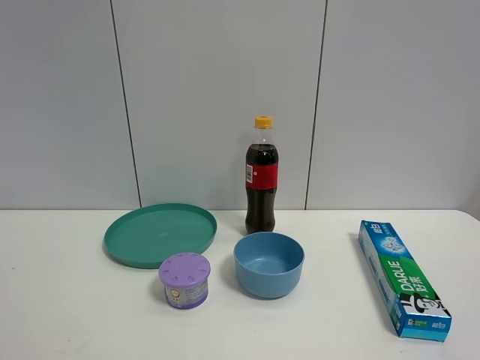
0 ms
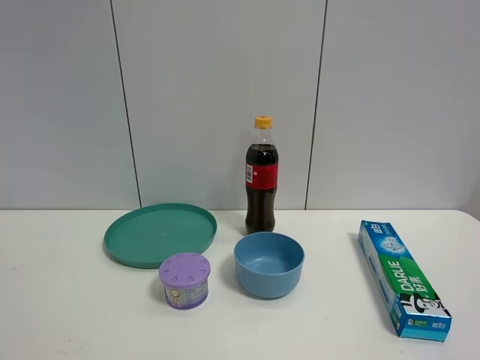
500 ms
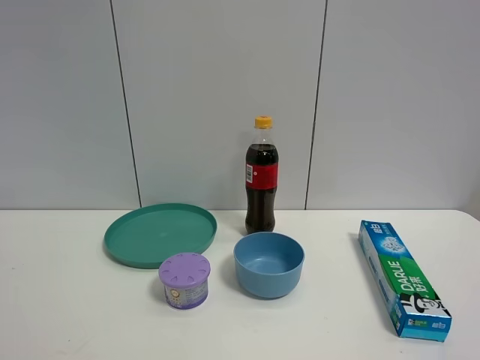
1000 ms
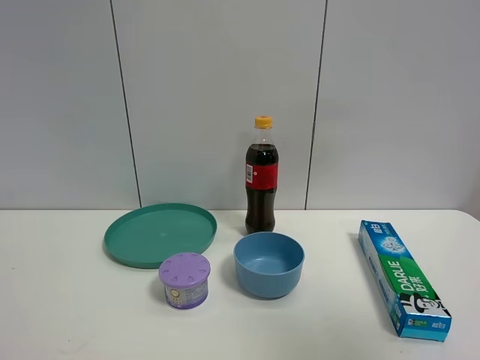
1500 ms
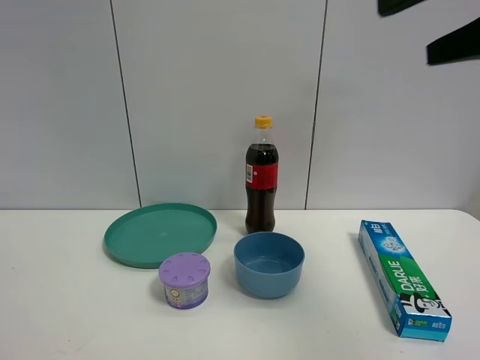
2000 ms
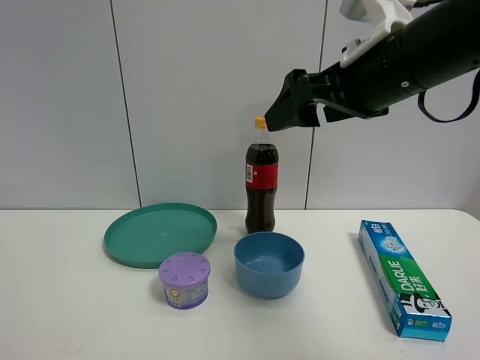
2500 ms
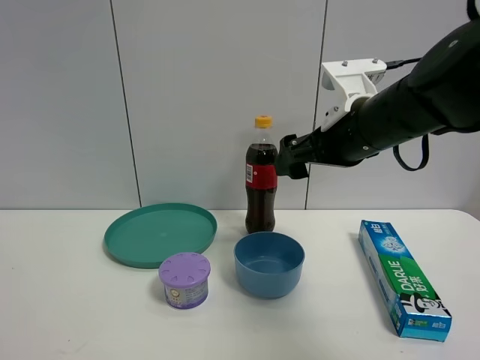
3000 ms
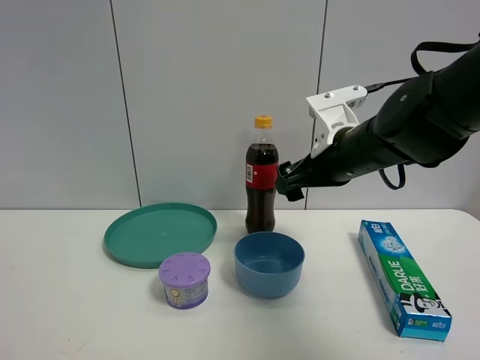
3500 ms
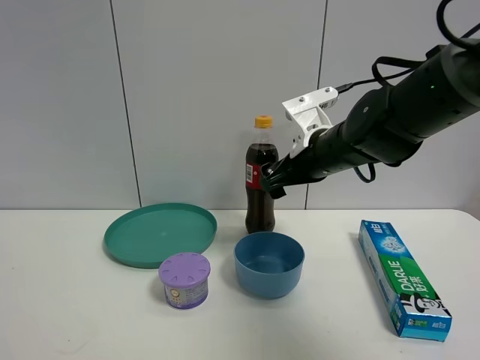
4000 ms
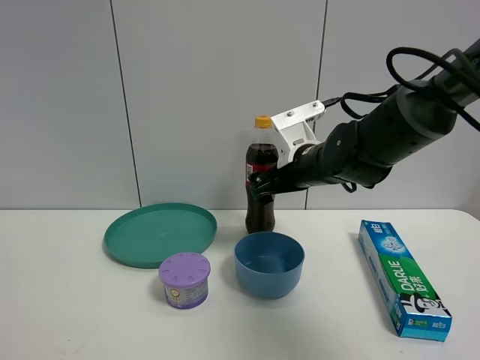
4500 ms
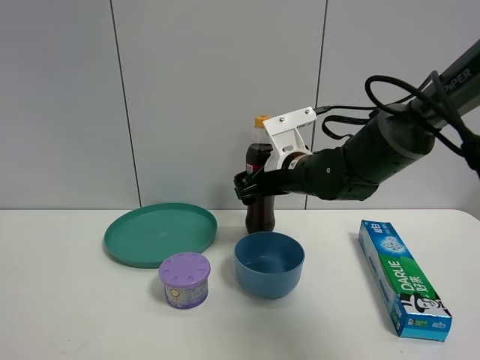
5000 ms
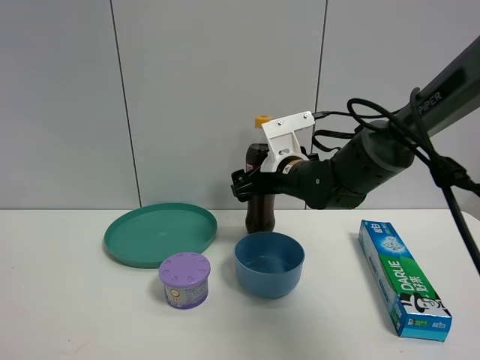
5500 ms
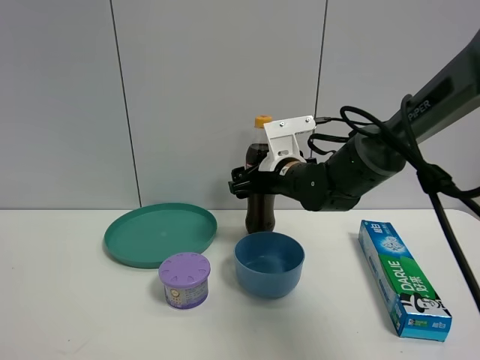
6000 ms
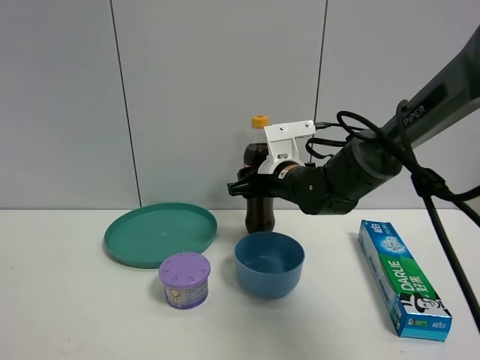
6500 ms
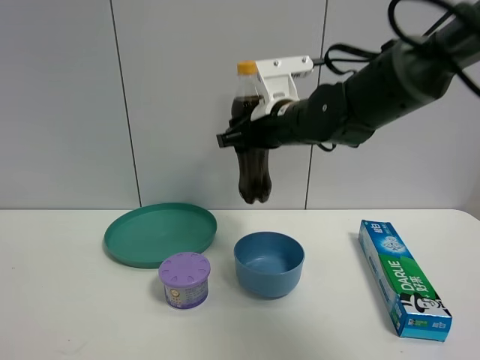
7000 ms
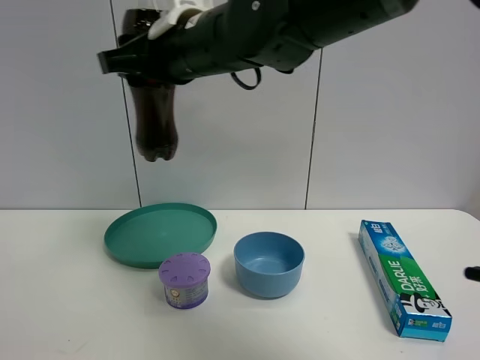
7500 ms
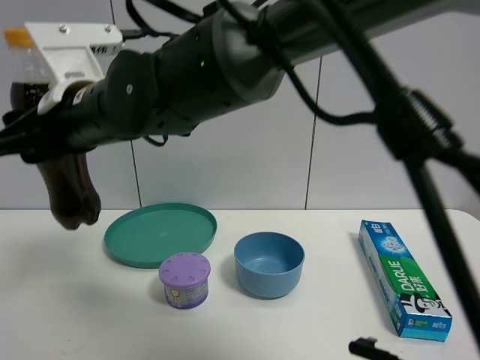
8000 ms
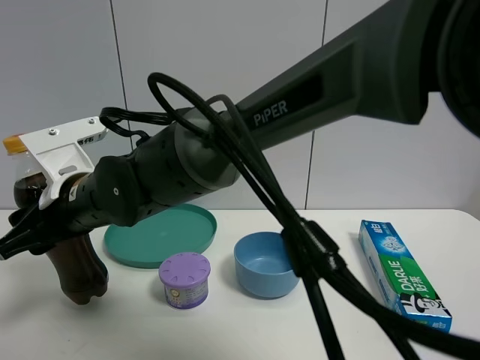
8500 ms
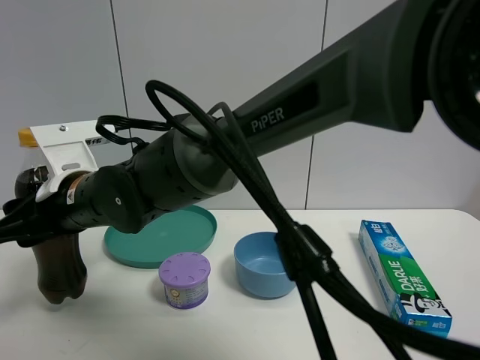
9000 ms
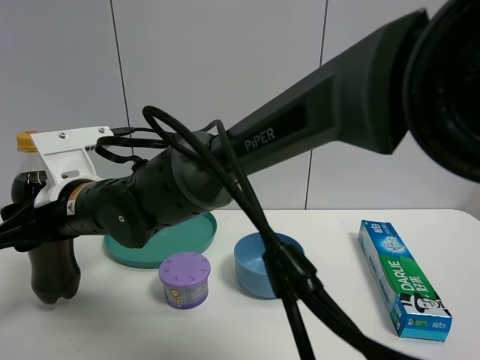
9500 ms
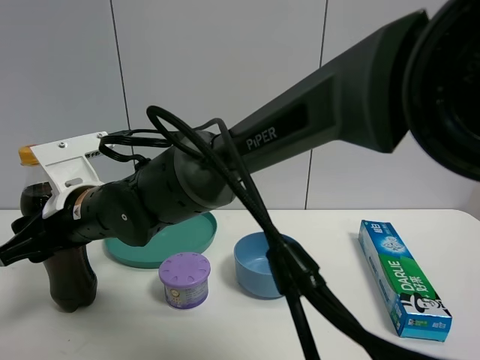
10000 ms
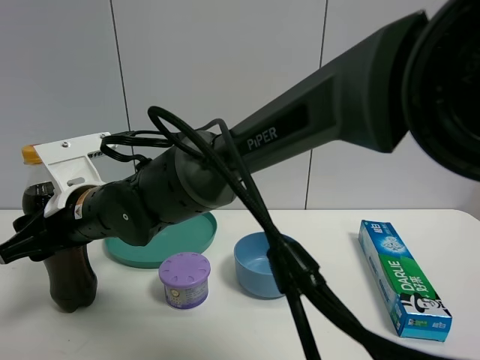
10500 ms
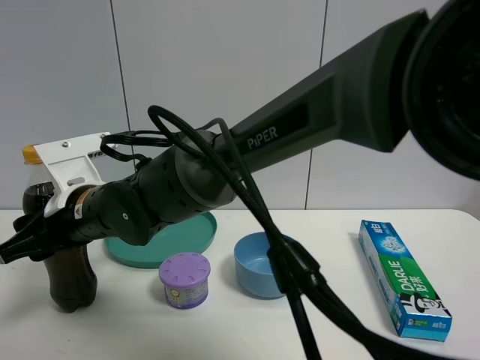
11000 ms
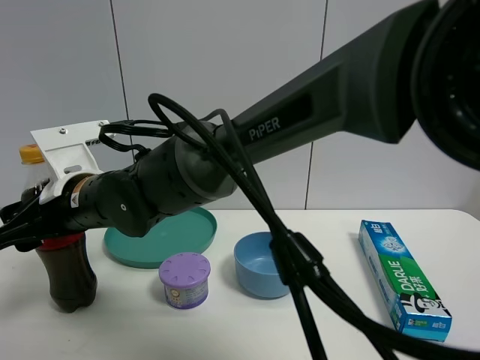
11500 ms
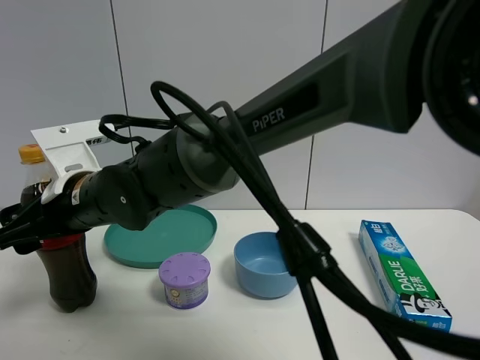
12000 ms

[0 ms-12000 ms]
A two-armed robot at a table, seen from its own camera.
Task of the whole recording: the gripper move the object.
Step, 0 ms to 6000 ms: Grasp the coke with the right gripper.
0 ms to 2000 ms: The right gripper moves forward and upward, about 25 cm.
2000 ms to 4000 ms: The right gripper goes approximately 25 cm downward, forward and to the left.
4000 ms to 6000 ms: The right gripper is displaced downward by roughly 5 cm.
6000 ms to 8000 ms: The right gripper goes some 30 cm to the left, backward and upward, and closes.
8000 ms to 10000 ms: The right gripper goes some 10 cm downward.
10000 ms to 12000 ms: The right gripper opens its fingers.

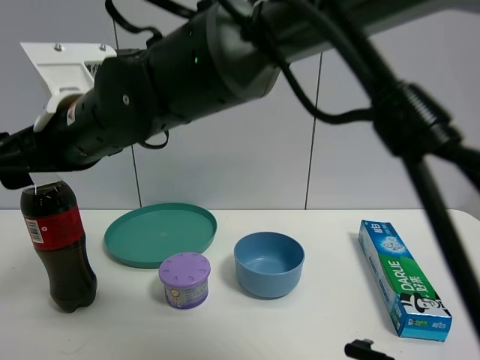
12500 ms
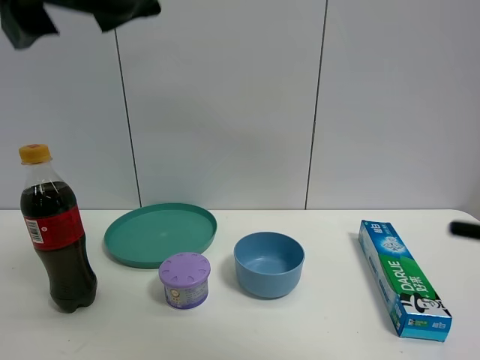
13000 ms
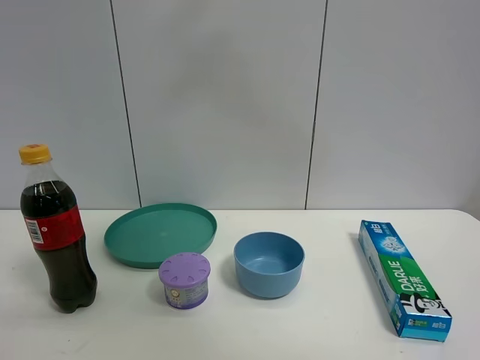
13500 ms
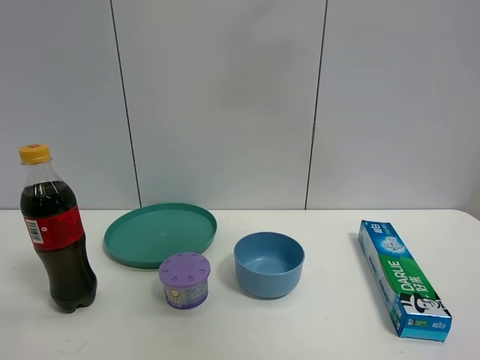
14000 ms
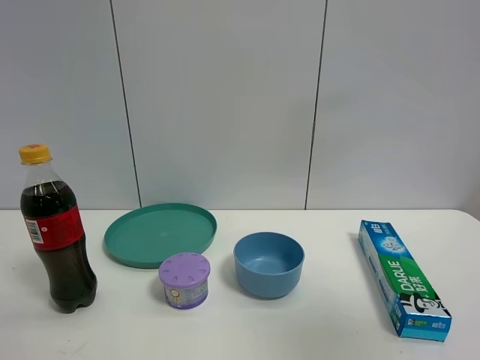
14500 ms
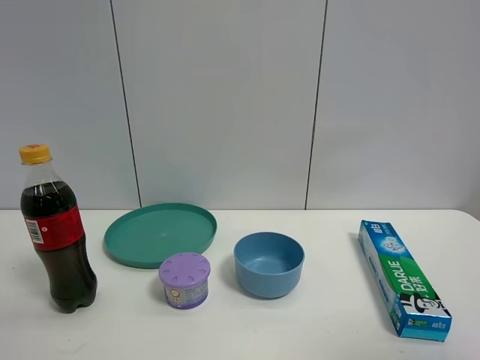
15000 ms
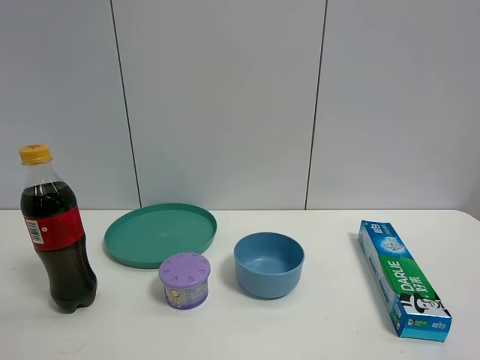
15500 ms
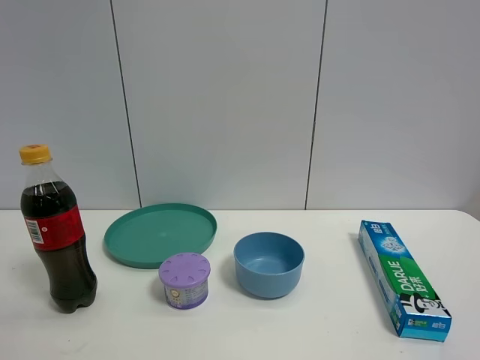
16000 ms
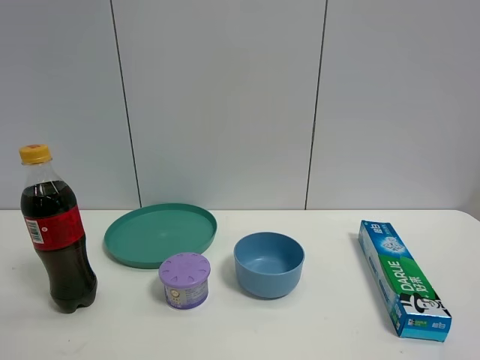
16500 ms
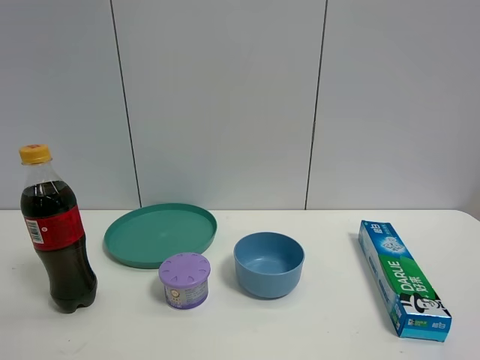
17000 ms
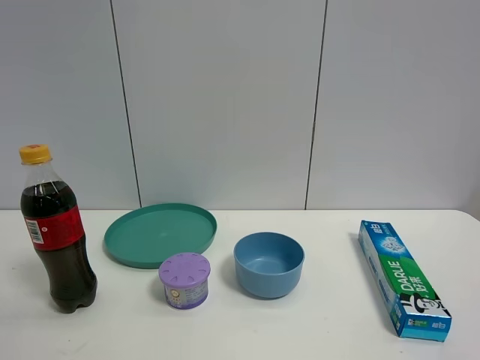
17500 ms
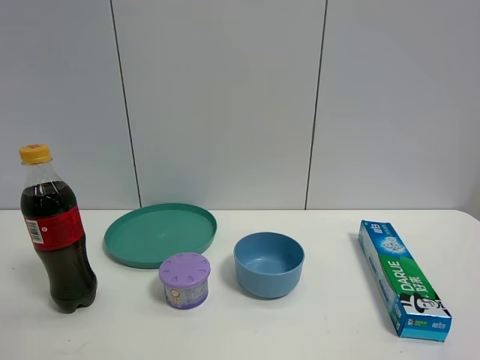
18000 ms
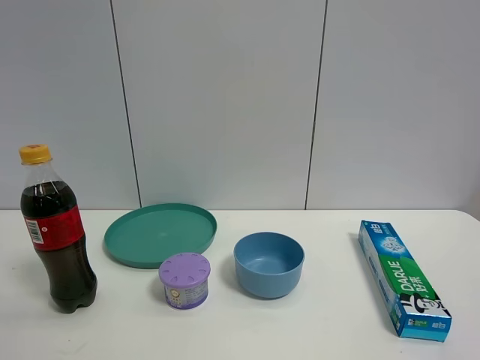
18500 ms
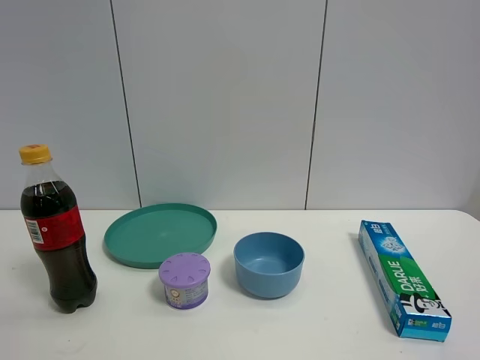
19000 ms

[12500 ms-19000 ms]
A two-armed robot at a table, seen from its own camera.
Task of the whole recording: the gripper move the object.
12500 ms to 14500 ms: The right gripper goes some 50 cm to the right and backward.
14500 ms to 17000 ms: The right gripper shifts roughly 15 cm downward and backward.
17000 ms to 19000 ms: The two grippers keep their place.

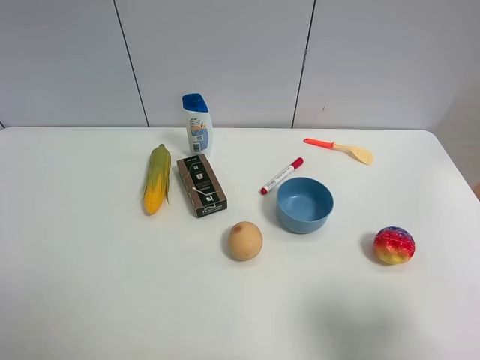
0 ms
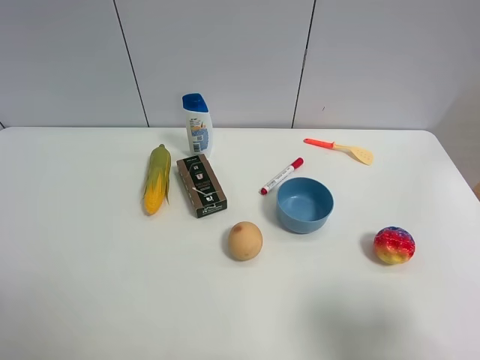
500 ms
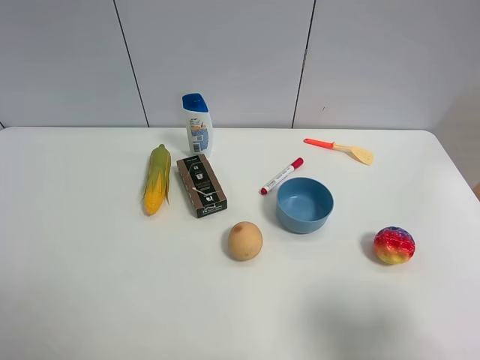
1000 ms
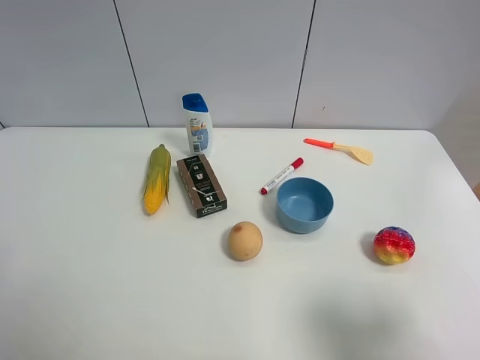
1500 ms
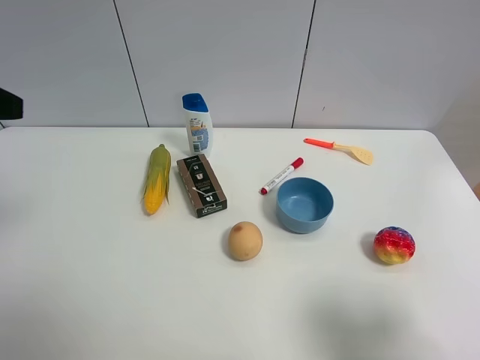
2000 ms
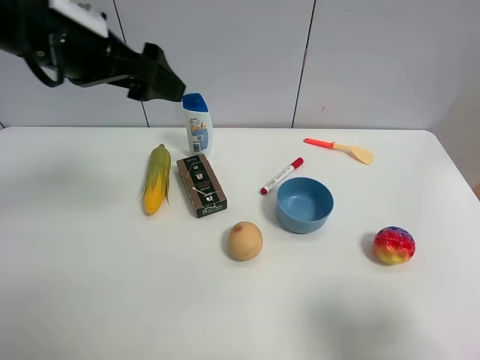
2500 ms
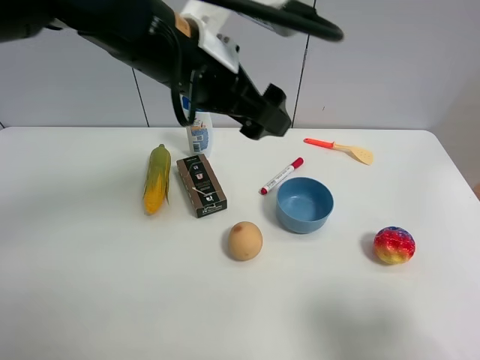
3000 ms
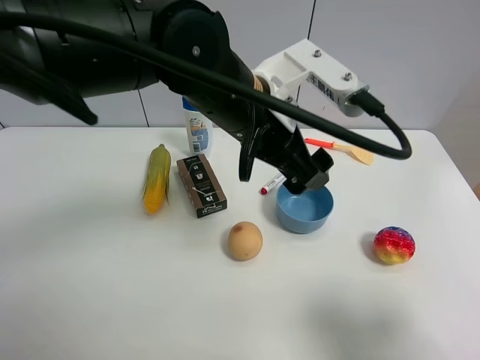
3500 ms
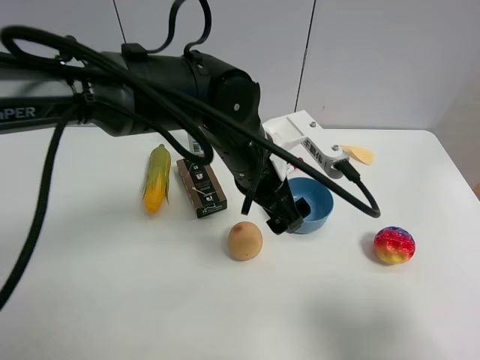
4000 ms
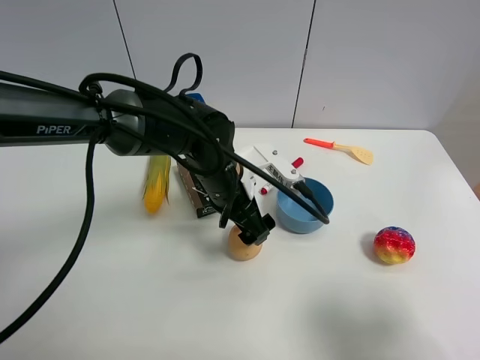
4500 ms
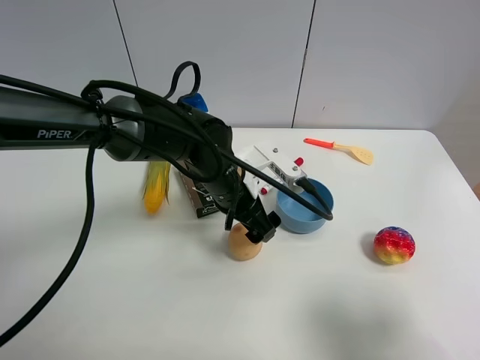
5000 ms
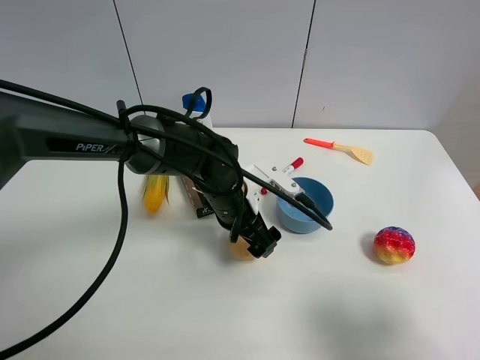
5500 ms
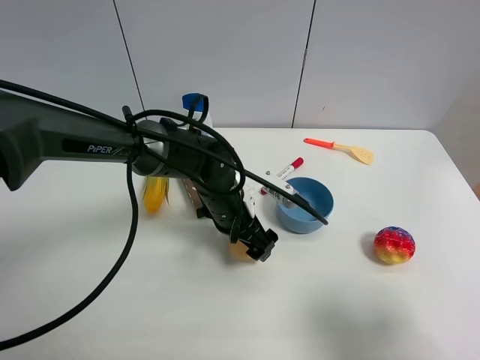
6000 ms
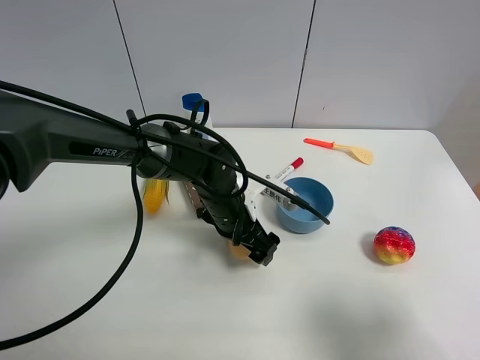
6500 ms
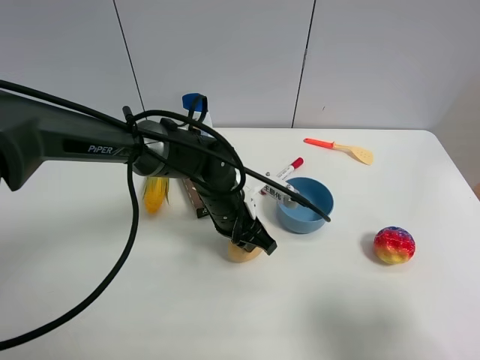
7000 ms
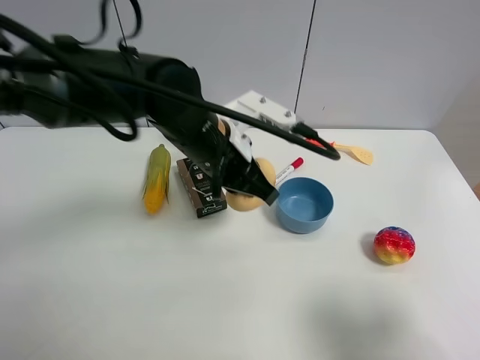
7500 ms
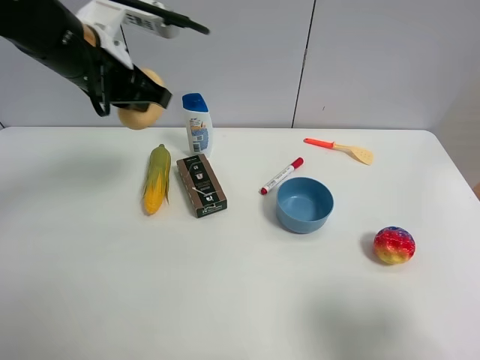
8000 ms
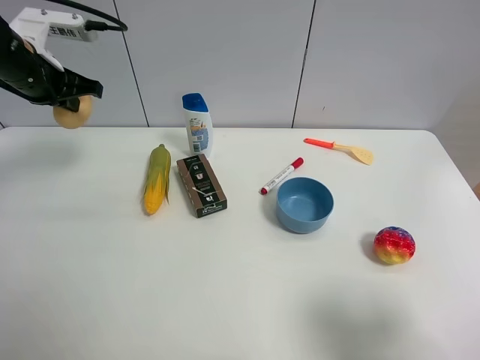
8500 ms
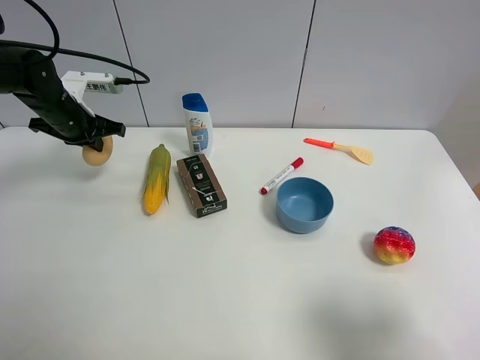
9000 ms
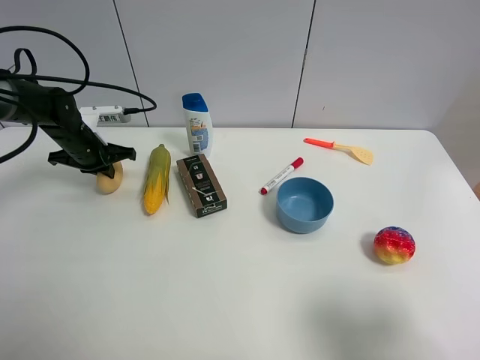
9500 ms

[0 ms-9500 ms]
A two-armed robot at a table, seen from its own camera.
Task of the whole recording: the gripper move the object.
Step, 0 ms to 7000 ms: Grasp the egg yolk pastry with the left gripper.
2000 ms to 4000 ms: The left gripper travels to the right and downward by about 35 cm.
4000 ms to 5500 ms: The left gripper shifts some 10 cm downward.
5500 ms to 7500 ms: The left gripper moves upward, about 15 cm, and closes up.
7500 ms to 9500 ms: The left gripper moves to the left, forward and downward, about 30 cm.
